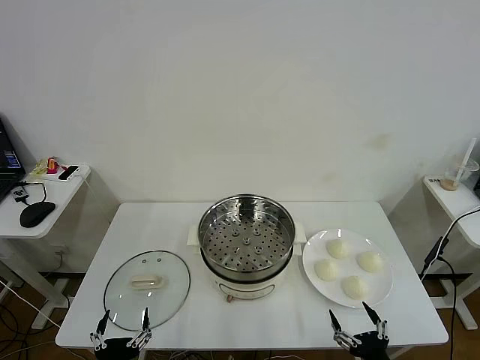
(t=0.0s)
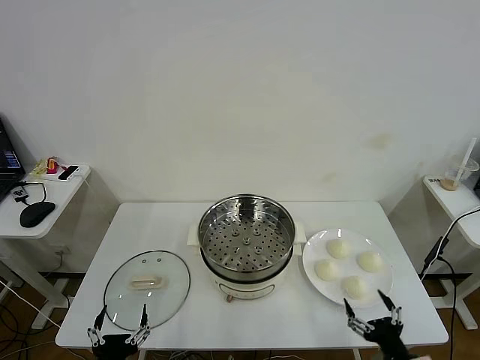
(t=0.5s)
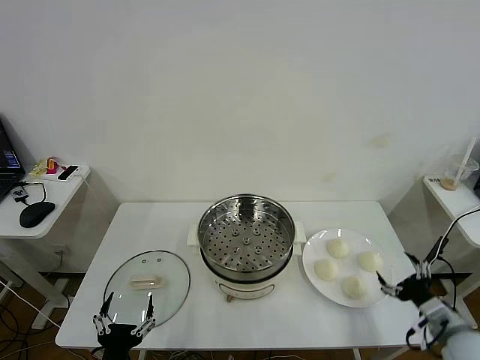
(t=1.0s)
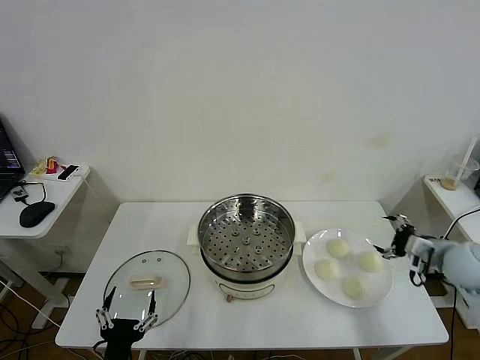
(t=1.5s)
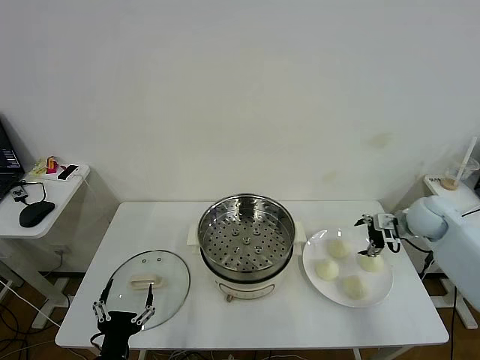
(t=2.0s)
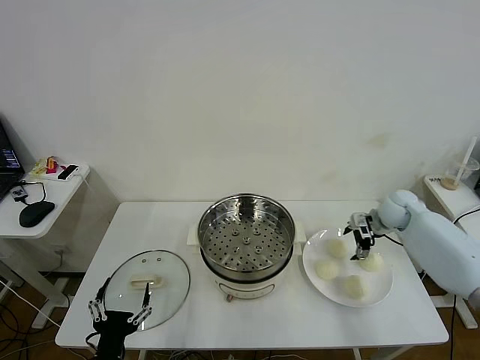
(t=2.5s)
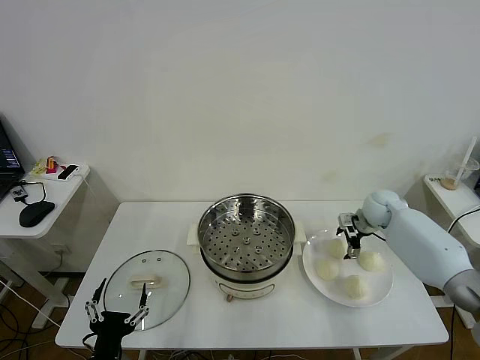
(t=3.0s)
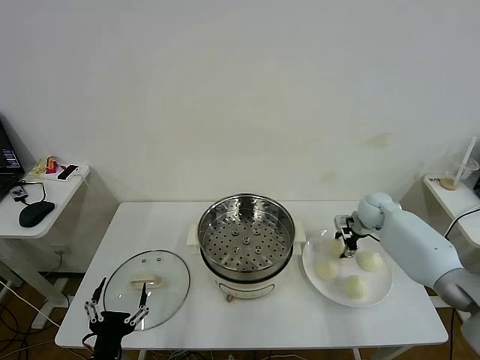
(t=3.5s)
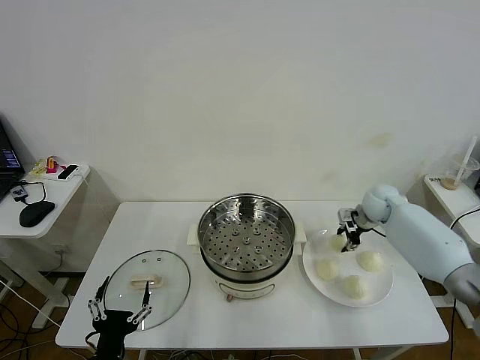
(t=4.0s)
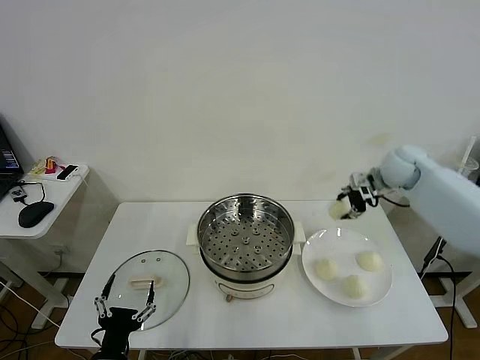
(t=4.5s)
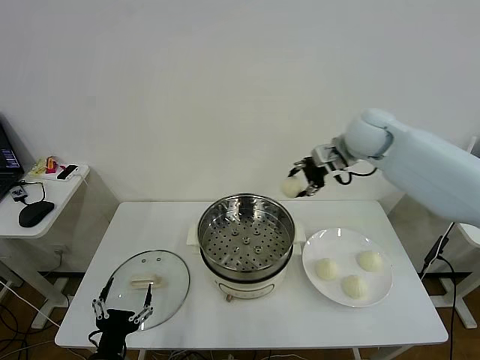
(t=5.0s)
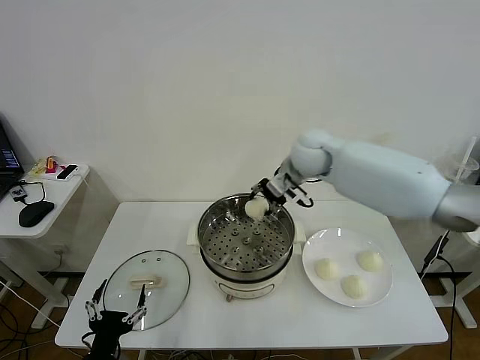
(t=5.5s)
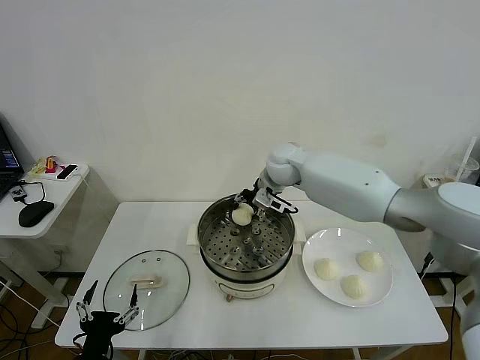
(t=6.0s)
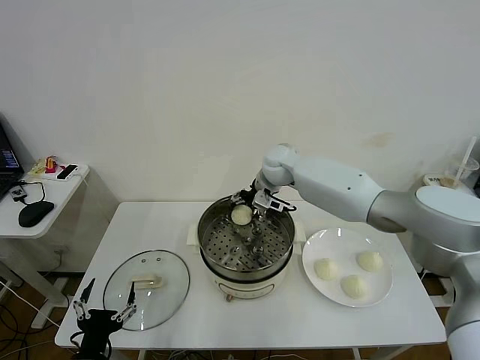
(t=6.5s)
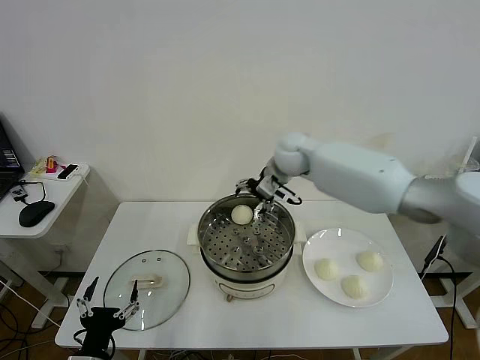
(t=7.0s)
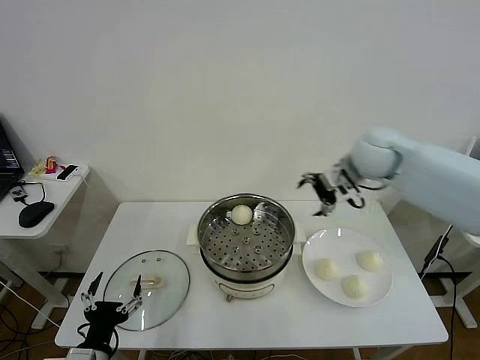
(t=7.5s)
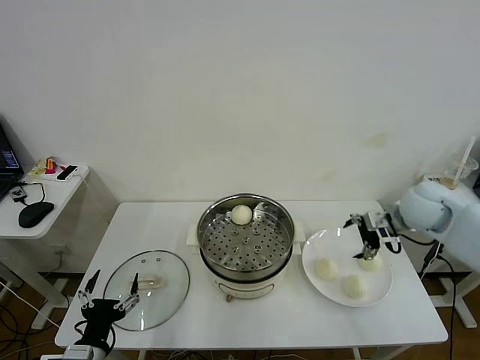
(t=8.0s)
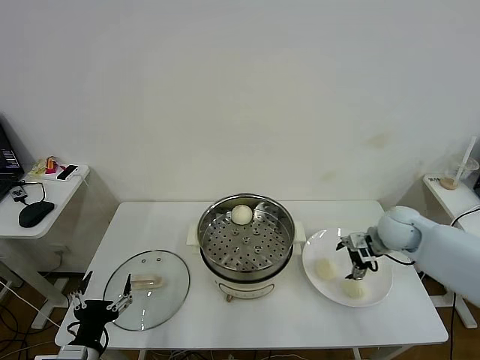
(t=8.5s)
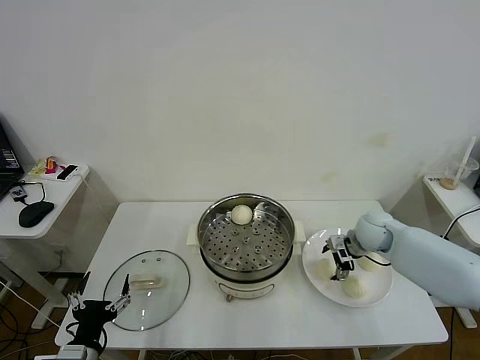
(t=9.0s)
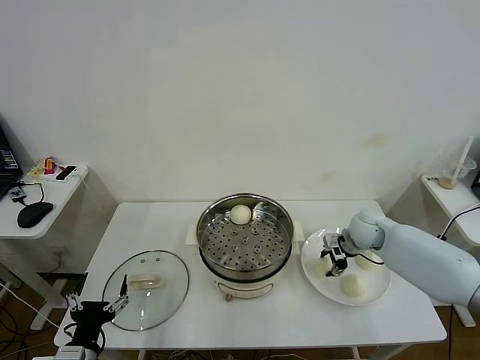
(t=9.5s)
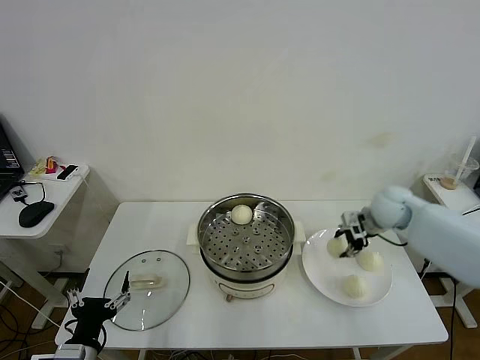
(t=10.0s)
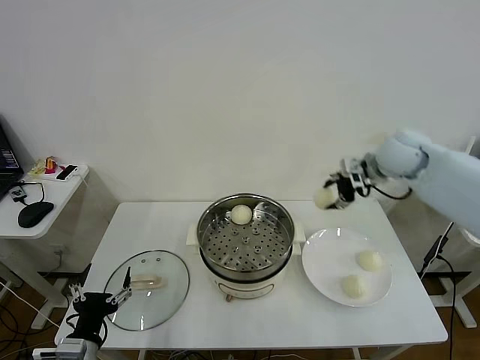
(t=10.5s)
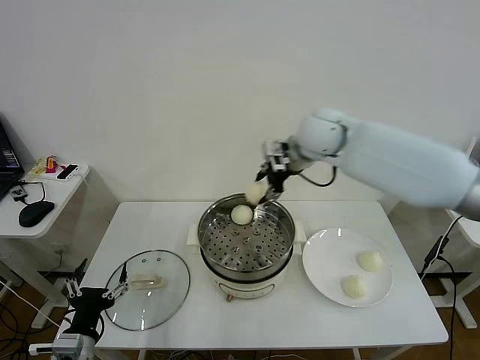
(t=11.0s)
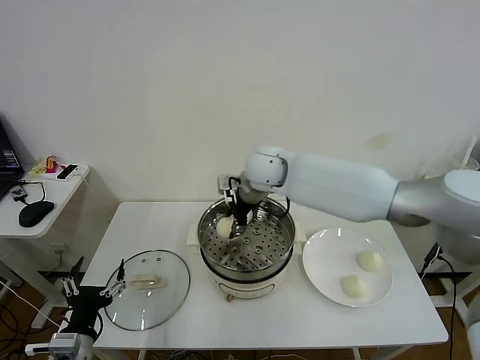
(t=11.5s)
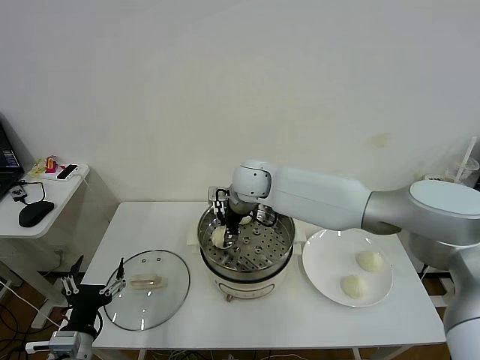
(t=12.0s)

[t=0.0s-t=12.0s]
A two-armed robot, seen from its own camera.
Task of the whole recording: take steamed baozi put them in steamer then cover it.
Step, t=0.0s to t=3.5s: Grasp the baozi in the plate with right gripper.
Step, t=4.0s to t=6.5s: Place the baozi on the steamer with right gripper.
Step, t=7.0s to t=9.0s: Grasp the baozi in the plate with right gripper.
t=2.0s to t=4.0s: The right gripper heads forward, covering about 5 cm, and closes up.
t=4.0s to t=6.0s: The right gripper heads to the left, covering some 30 cm.
t=6.0s to t=8.0s: The right gripper moves to the right and backward, roughly 30 cm, and opens.
t=8.0s to t=10.0s: The right gripper heads forward, covering some 5 cm, reaches some 10 cm downward, then returns, and closes its fingers.
t=10.0s to t=12.0s: The right gripper heads to the left, covering about 35 cm, and opens its fingers.

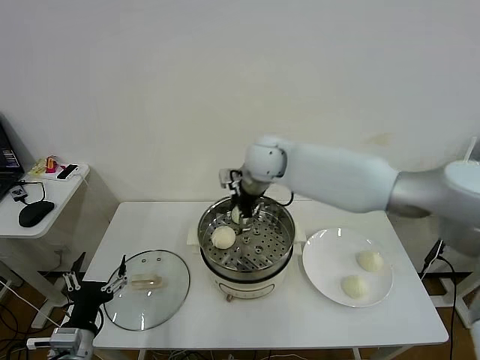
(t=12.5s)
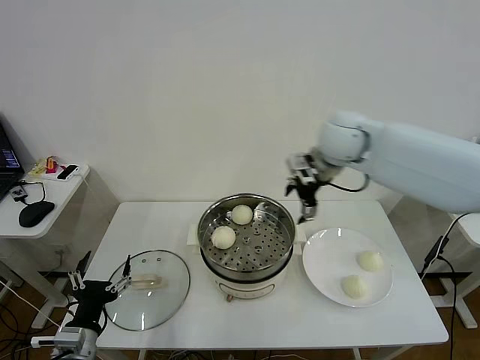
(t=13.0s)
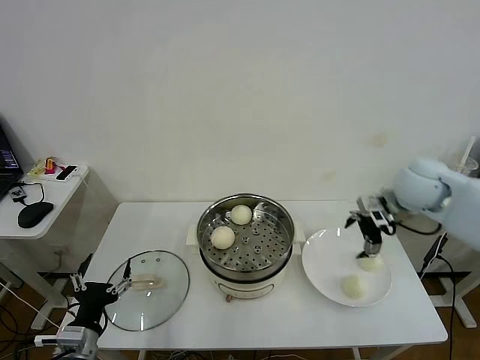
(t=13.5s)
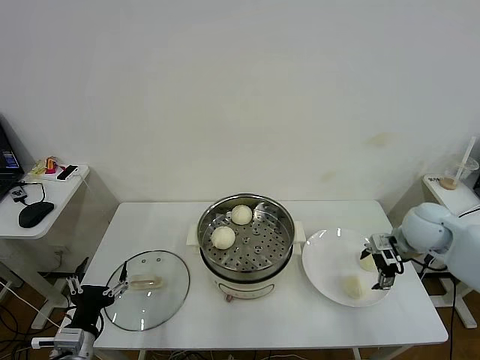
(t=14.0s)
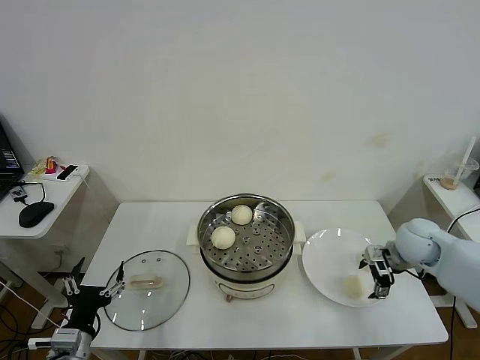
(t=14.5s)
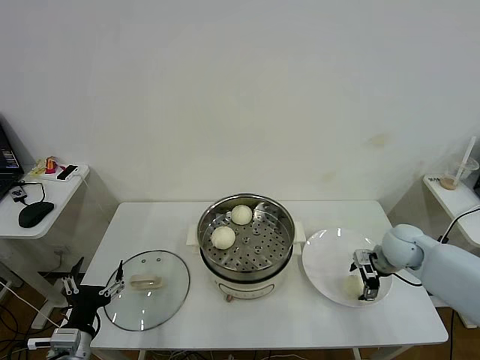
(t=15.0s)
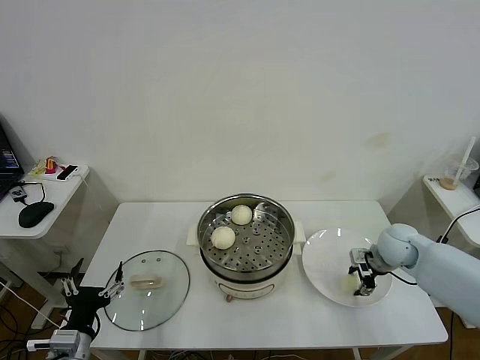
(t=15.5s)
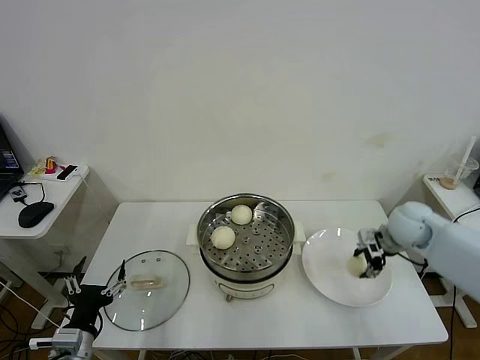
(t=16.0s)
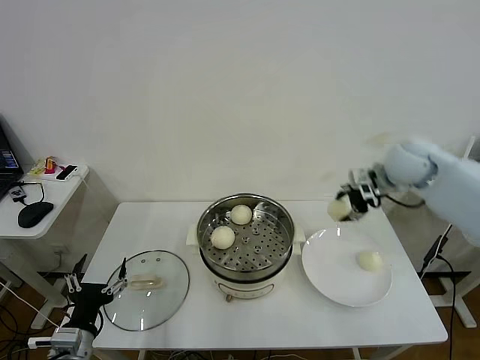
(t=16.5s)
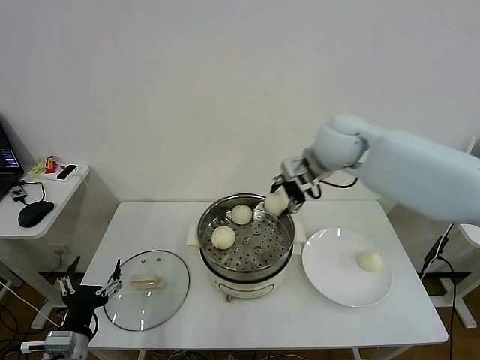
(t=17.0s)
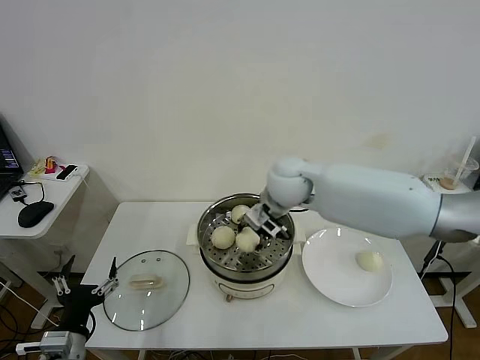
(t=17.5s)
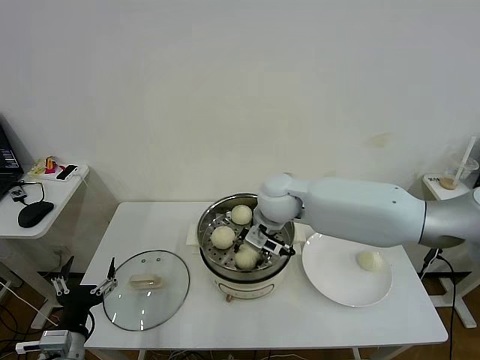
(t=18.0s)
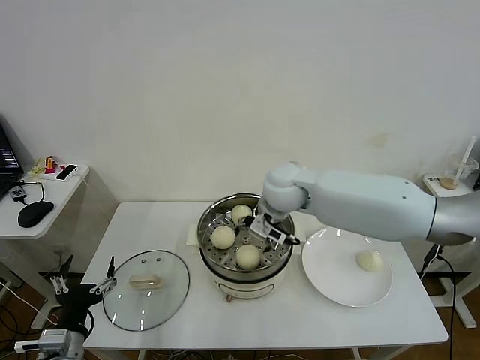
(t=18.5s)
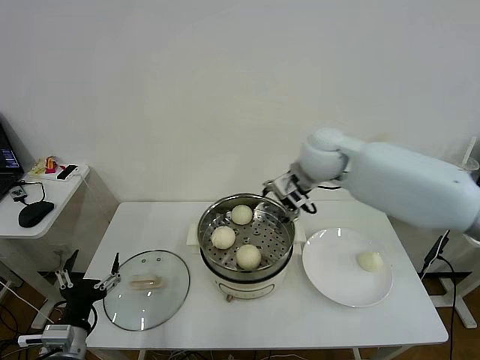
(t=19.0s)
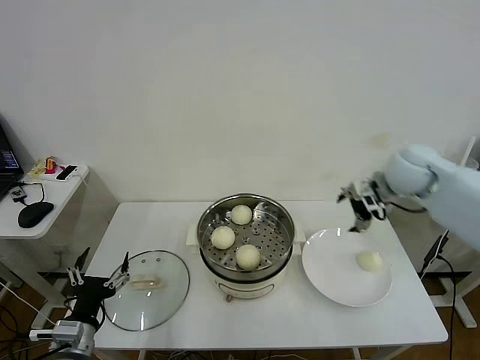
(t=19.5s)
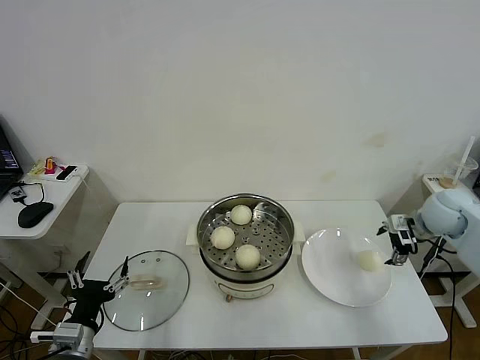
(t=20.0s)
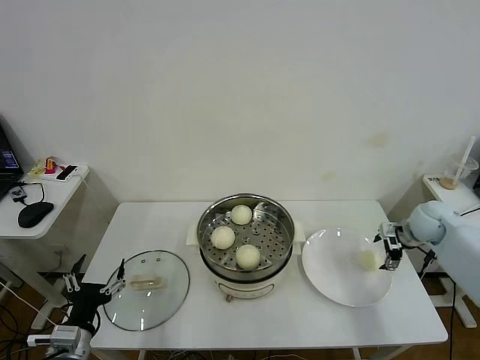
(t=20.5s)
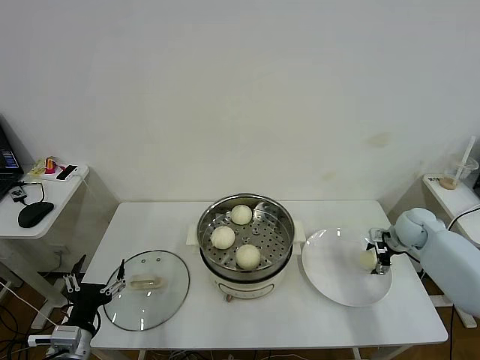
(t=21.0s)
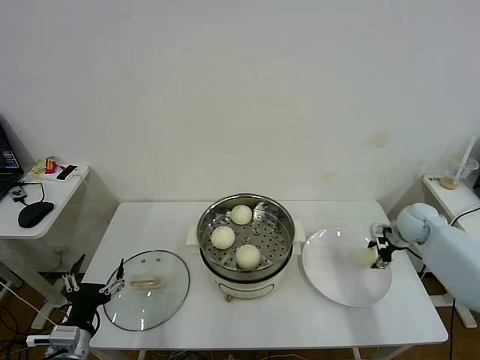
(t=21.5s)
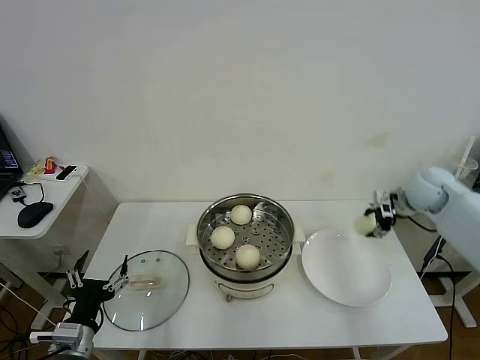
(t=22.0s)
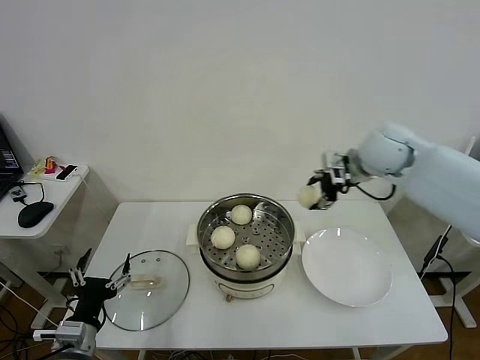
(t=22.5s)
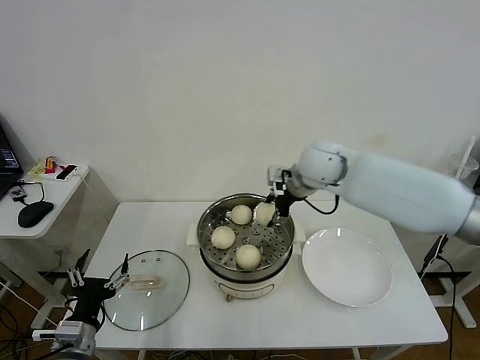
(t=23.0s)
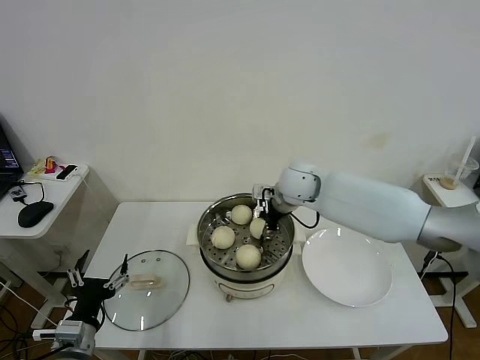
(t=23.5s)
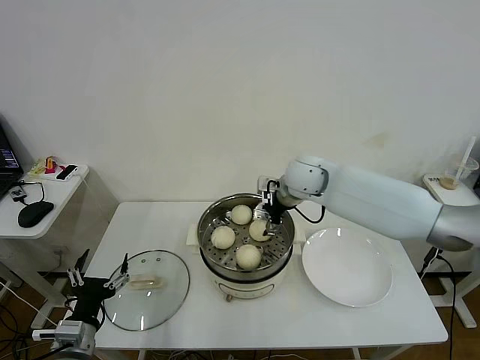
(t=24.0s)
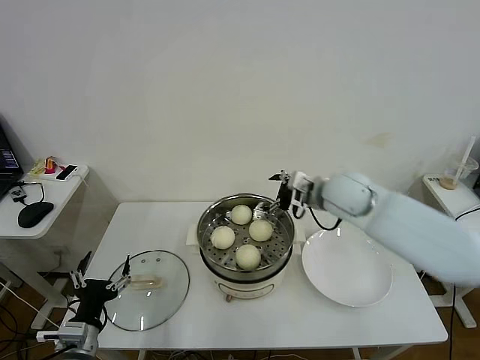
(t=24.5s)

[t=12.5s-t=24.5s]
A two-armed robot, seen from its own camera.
Task of the whole recording: take steamed baozi put them in steamer then cover it.
Step, t=12.5s to t=15.5s: Grasp the baozi in the plate with right gripper.
Step, t=16.0s to t=18.0s: Place the baozi on the steamer with right gripper.
Step, t=18.5s to t=21.0s: Grasp the baozi in the plate with right gripper.
Step, t=21.5s to t=23.5s: Place the baozi on the steamer with right gripper.
t=12.5s to t=14.5s: The right gripper goes about 35 cm to the right and downward.
t=14.5s to t=16.5s: The right gripper travels upward, to the left and forward by some 20 cm, and closes.
t=16.5s to t=18.5s: The right gripper heads to the left, covering some 20 cm, and opens up.
t=18.5s to t=20.5s: The right gripper travels to the right by approximately 35 cm.
t=20.5s to t=22.5s: The right gripper travels upward and to the left by roughly 30 cm, and closes.
t=22.5s to t=24.5s: The right gripper is displaced downward and to the left by about 10 cm, and opens up.

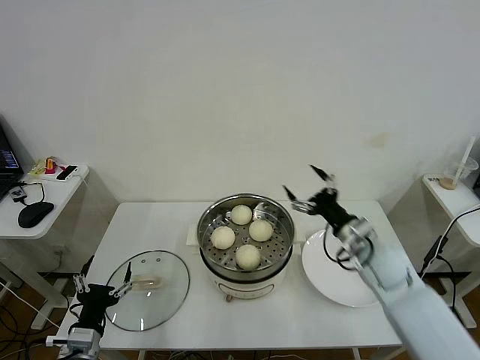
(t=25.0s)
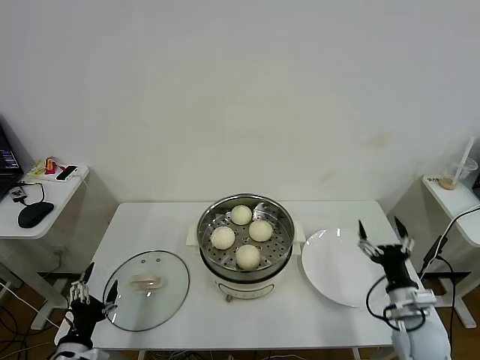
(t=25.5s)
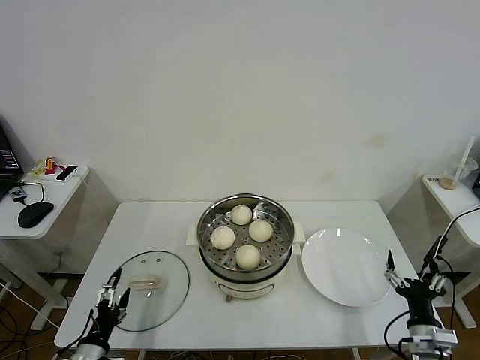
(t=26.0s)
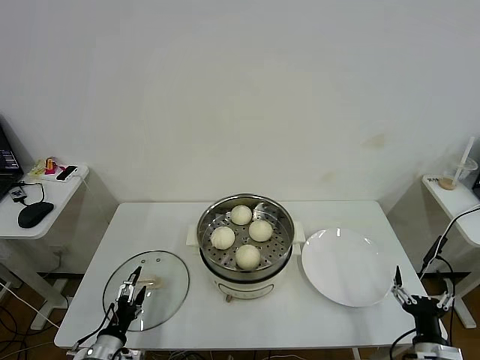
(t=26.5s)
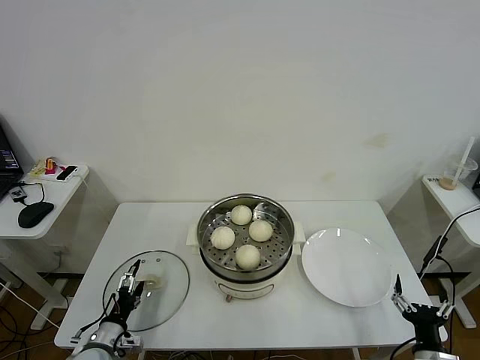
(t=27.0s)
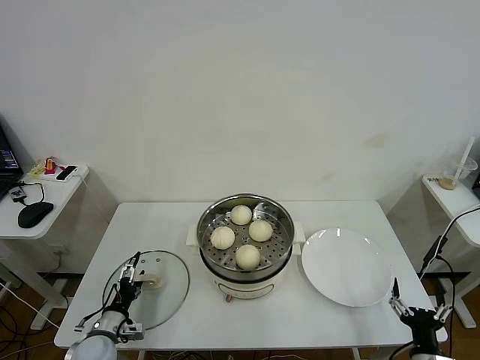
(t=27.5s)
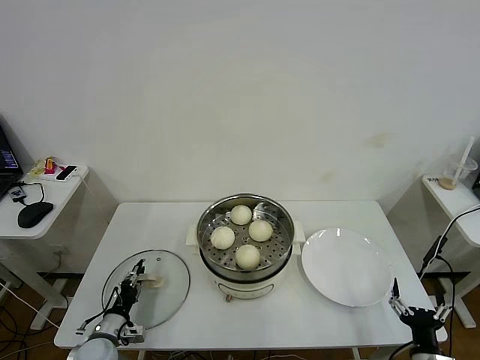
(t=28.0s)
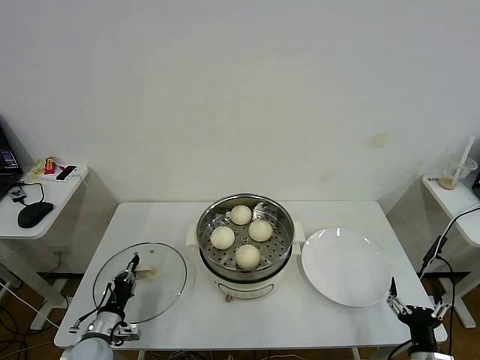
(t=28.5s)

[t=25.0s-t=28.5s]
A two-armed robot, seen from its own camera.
Task of the whole recording: take steamed baozi put them in steamer then cover it.
Step, t=25.0s to t=28.0s: Grasp the pot lid with left gripper.
t=25.0s to t=27.0s: The left gripper shifts some 10 cm downward; the right gripper heads backward and downward, covering about 30 cm.
t=27.0s to t=28.5s: The left gripper closes up.
